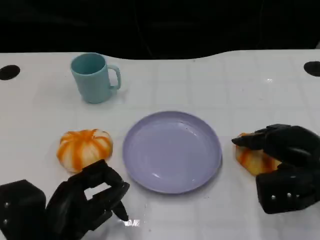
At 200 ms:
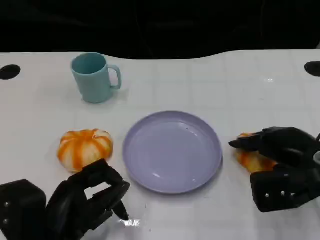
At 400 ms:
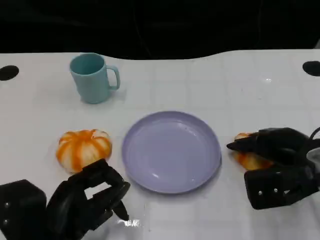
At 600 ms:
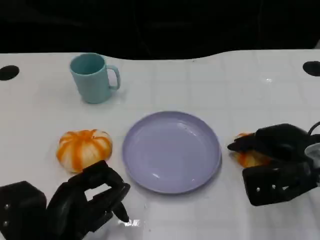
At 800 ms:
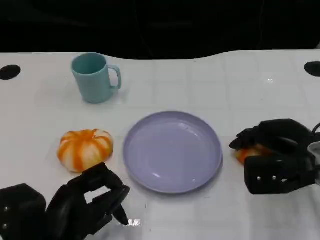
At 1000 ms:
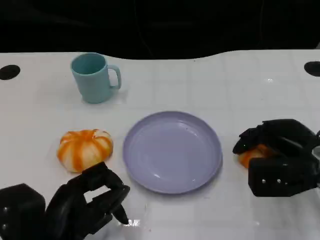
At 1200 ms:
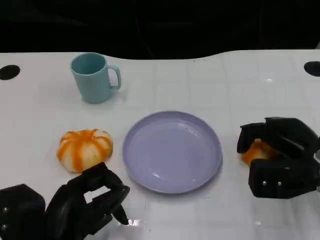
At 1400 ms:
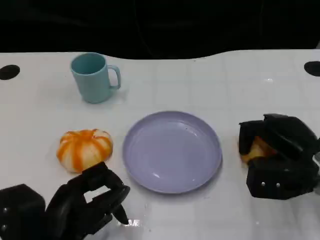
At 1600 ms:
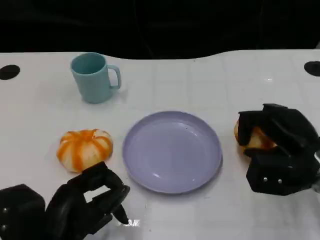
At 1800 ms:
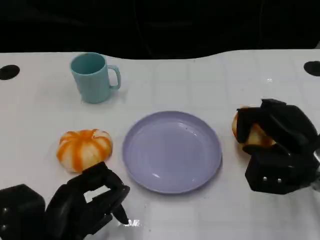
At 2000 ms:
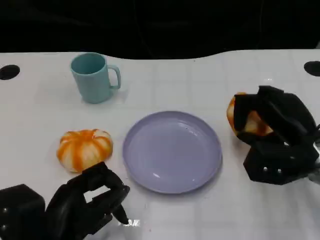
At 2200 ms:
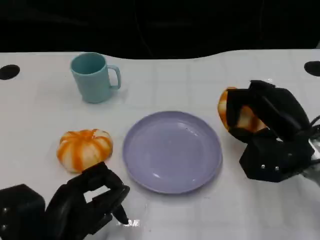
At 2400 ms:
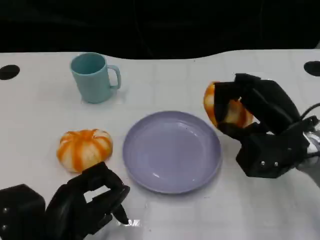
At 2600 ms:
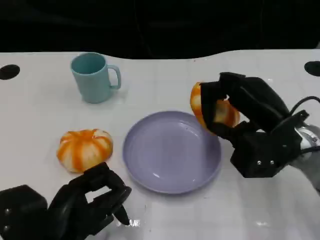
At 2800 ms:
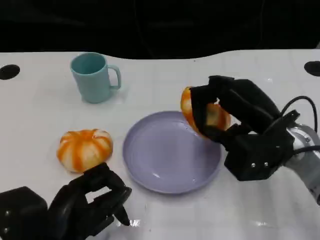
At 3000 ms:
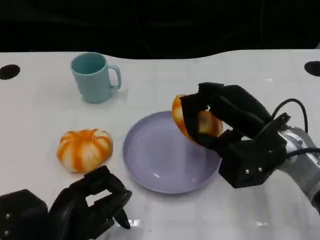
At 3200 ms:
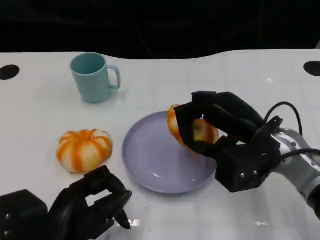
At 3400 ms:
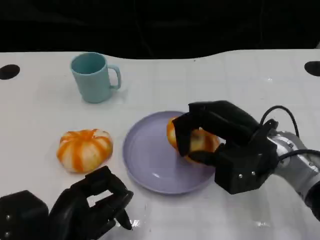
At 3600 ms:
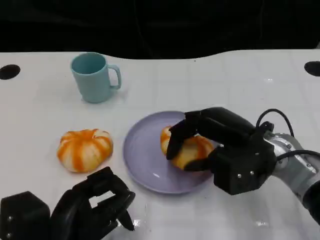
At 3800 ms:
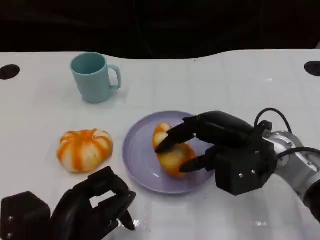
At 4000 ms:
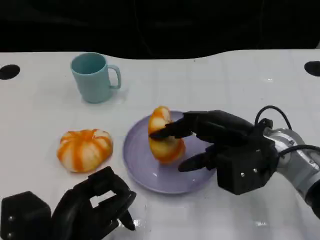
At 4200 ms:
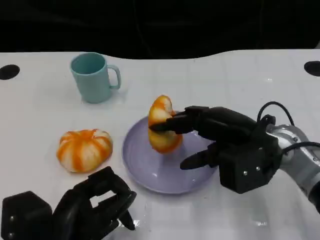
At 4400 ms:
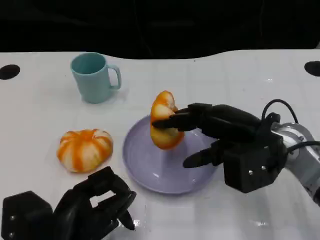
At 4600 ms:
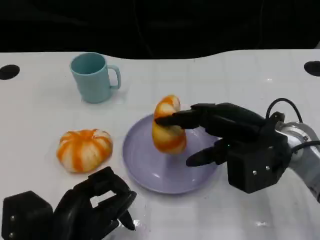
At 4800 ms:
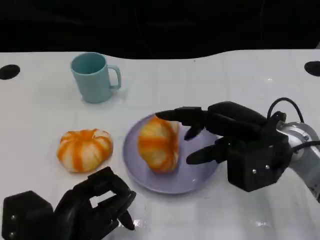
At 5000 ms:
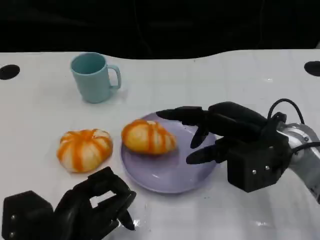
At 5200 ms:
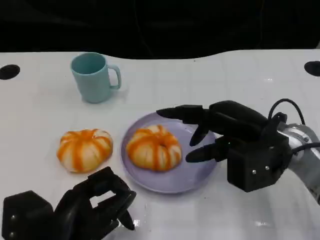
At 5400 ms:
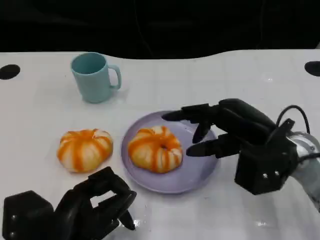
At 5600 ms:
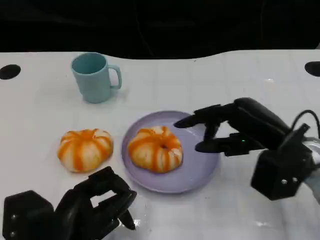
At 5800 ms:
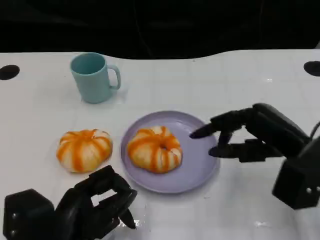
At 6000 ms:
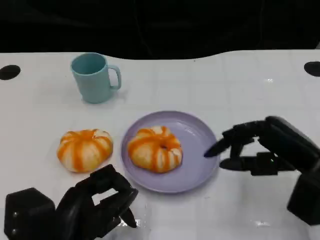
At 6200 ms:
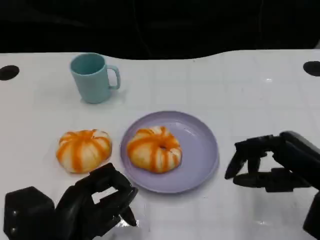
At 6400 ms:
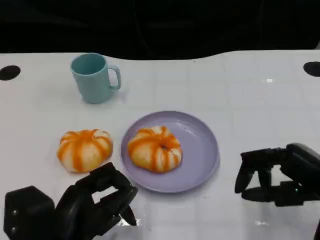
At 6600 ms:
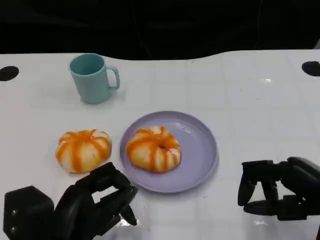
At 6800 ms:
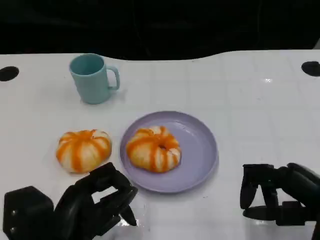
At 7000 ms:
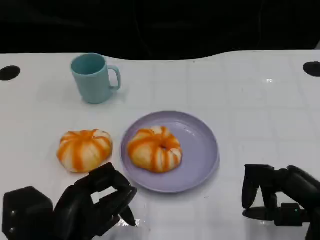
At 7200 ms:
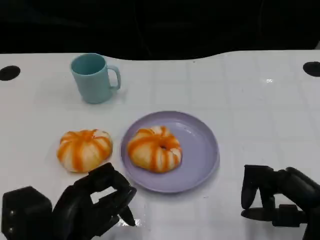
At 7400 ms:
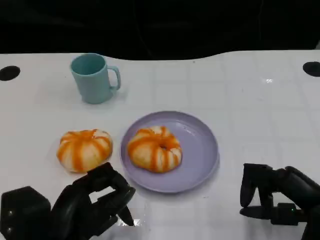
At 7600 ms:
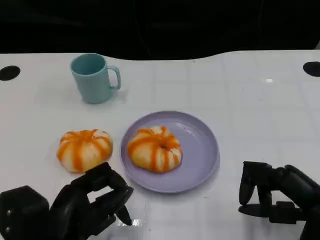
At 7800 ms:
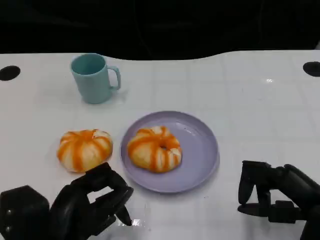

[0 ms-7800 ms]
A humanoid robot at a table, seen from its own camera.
Task of the whole recording: Grasp the bread from the table and place it into the plate.
1600 ms to 3200 ms: The right hand travels to the left by about 5 cm.
3200 ms to 4600 ms: There are only small adjustments of the hands.
4600 ms to 6200 ms: The right hand travels to the right and backward by roughly 10 cm.
6200 ms to 7800 ms: The hands make only small movements.

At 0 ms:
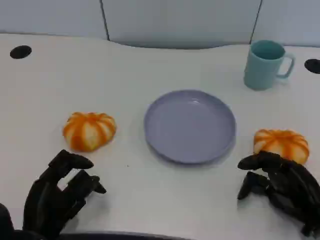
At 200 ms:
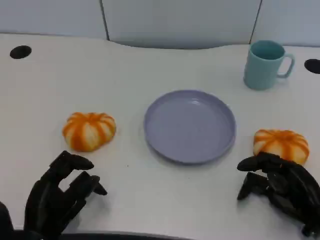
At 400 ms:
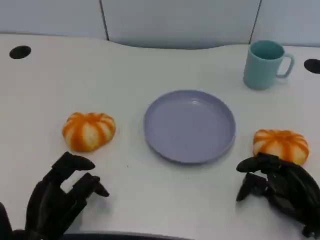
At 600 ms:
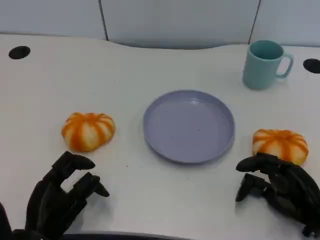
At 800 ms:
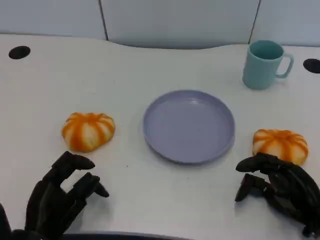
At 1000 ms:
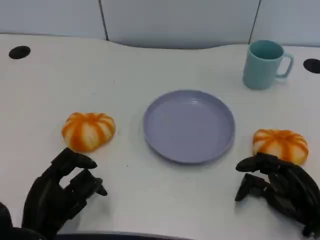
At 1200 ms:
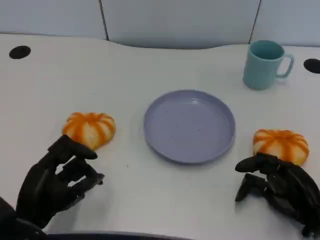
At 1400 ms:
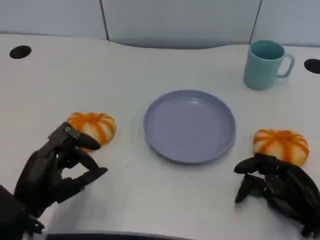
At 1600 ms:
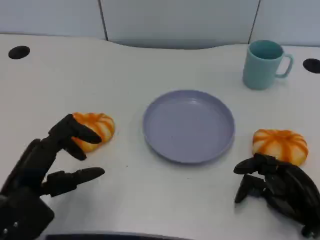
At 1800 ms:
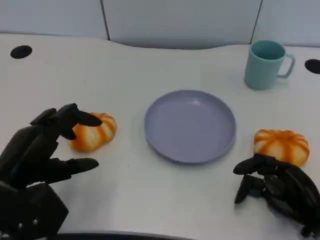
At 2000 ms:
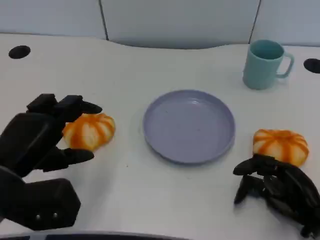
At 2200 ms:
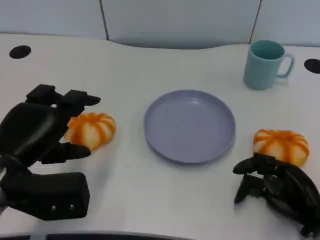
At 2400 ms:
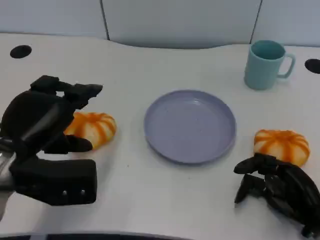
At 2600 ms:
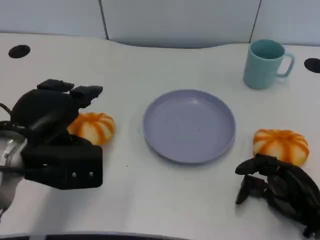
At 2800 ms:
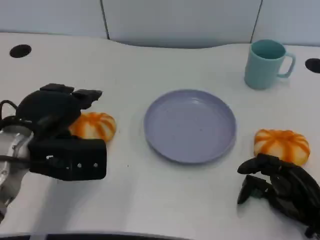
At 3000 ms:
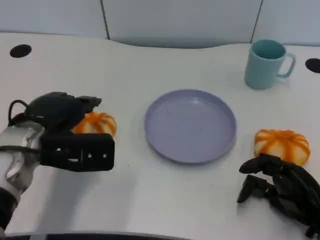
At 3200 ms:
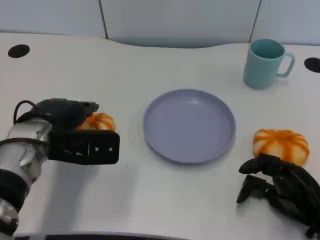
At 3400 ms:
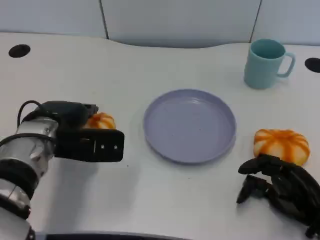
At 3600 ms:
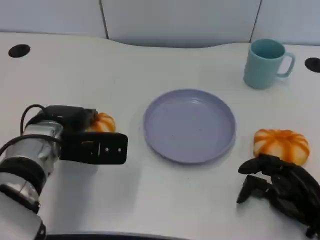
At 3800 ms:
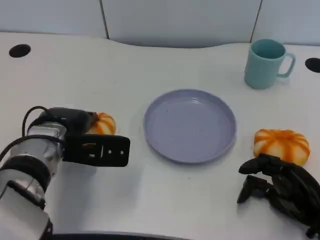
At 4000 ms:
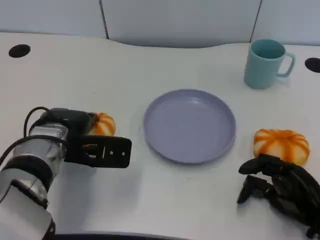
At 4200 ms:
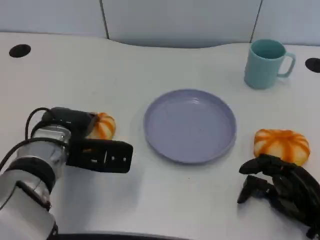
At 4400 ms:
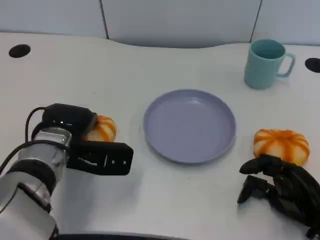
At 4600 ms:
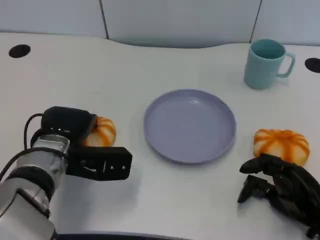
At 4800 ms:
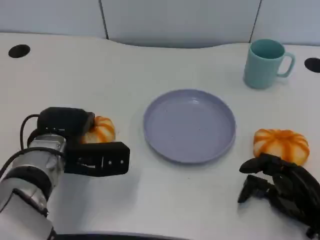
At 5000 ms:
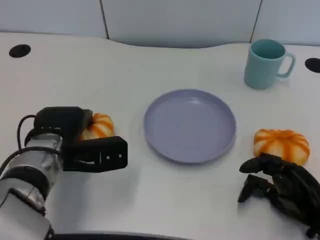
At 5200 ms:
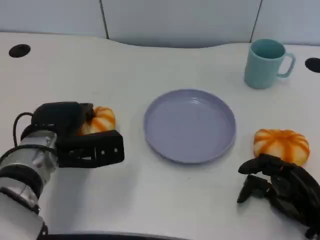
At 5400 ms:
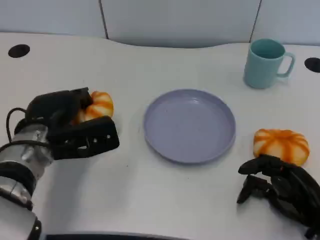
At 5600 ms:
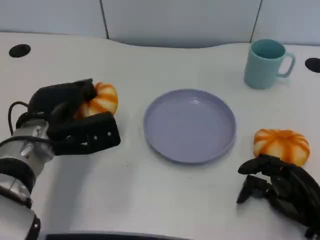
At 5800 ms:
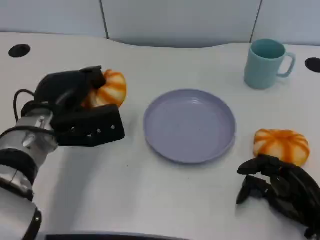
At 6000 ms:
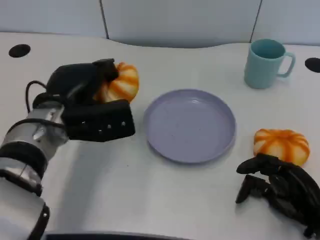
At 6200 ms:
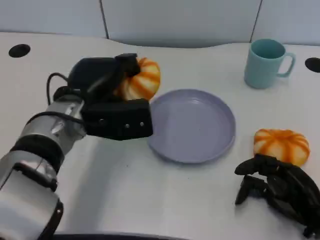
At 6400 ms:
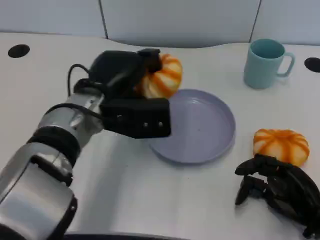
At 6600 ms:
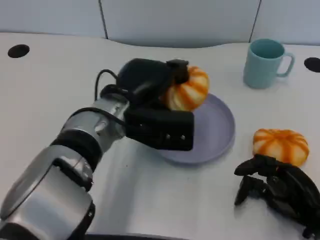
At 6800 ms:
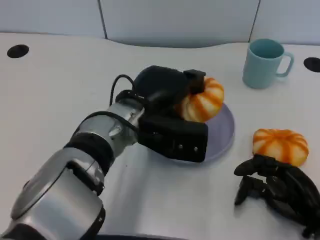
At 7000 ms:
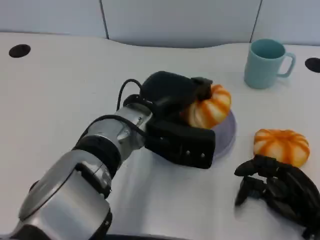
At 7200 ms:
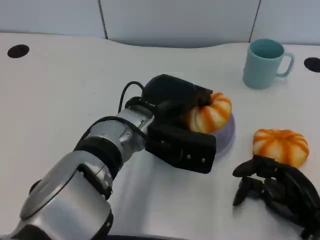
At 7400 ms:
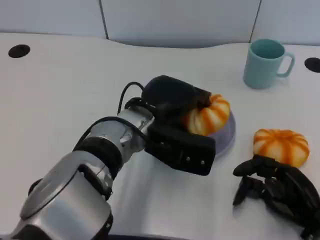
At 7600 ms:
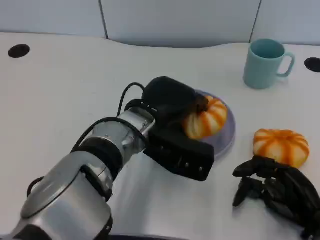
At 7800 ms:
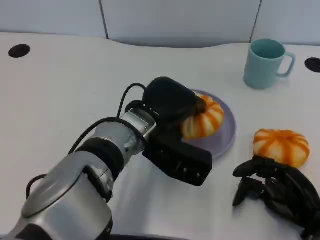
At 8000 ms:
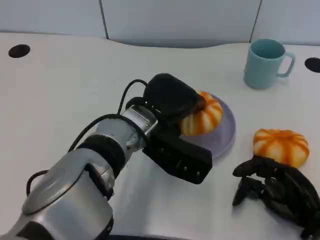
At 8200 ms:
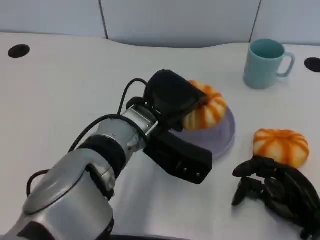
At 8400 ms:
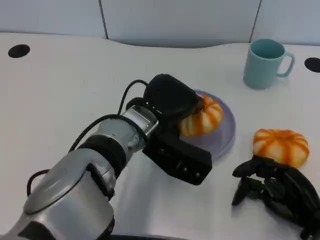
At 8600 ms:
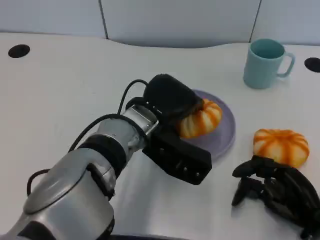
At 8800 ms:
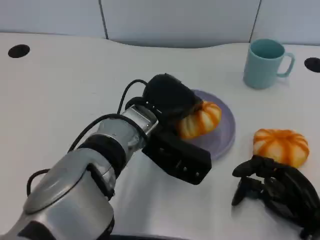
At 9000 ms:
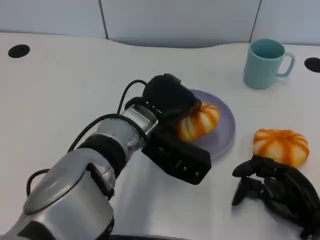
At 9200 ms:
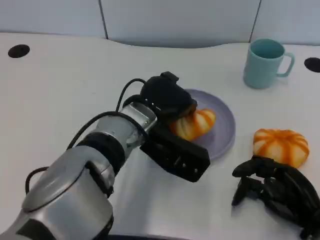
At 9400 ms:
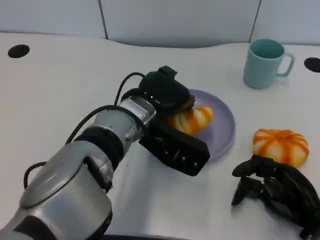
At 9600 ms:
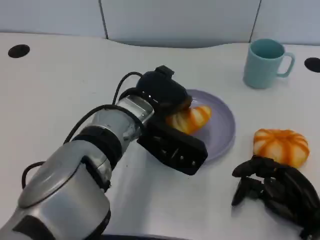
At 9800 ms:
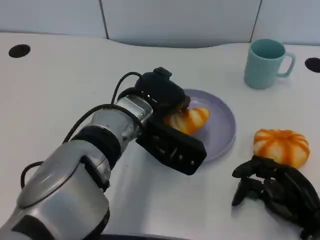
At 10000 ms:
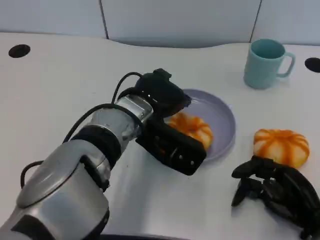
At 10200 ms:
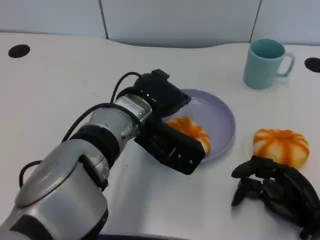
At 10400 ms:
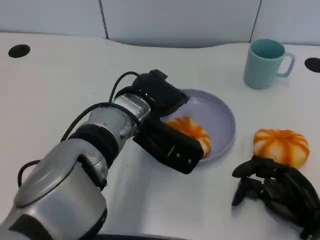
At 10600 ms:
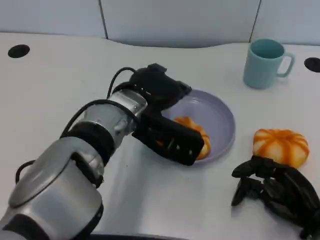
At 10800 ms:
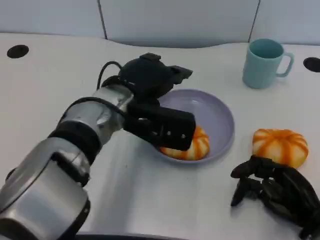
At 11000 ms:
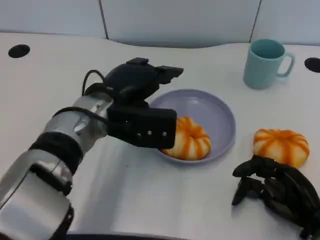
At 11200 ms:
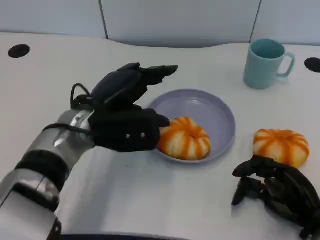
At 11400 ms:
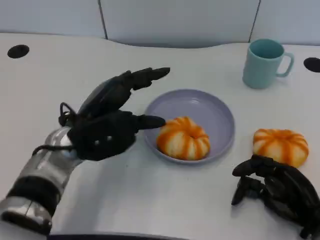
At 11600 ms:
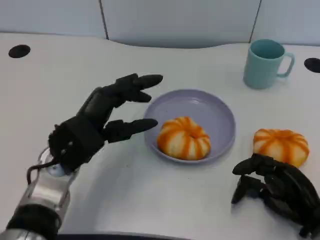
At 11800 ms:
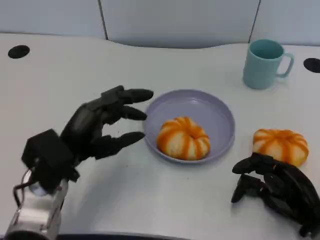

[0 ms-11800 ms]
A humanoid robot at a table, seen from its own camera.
Task of the whole recording: Grasp the bread from the table and place it into the plate.
0 ms to 1400 ms: The left hand is displaced upward by roughly 5 cm.
1400 ms to 3000 ms: The left hand goes approximately 10 cm forward and upward.
3000 ms to 4400 ms: The hands stay close to where they were, moving slightly.
6000 ms to 7400 ms: The left hand heads to the right, covering roughly 10 cm.
7400 ms to 8800 ms: There are only small adjustments of the hands.
8800 ms to 10400 ms: The hands stay close to where they were, moving slightly.
10400 ms to 11800 ms: The left hand shifts about 15 cm to the left and backward.

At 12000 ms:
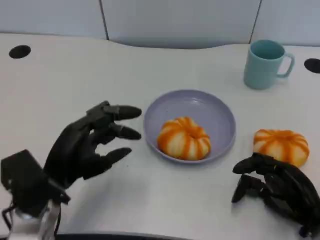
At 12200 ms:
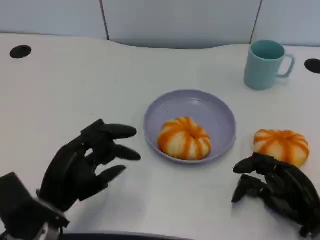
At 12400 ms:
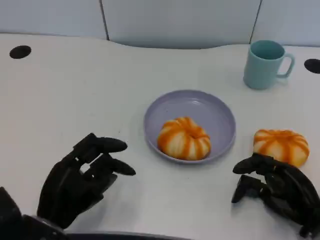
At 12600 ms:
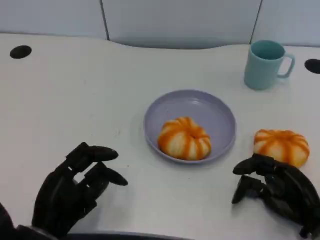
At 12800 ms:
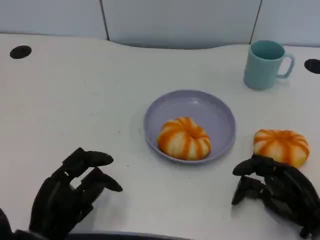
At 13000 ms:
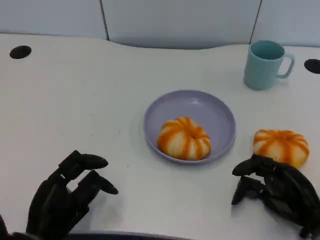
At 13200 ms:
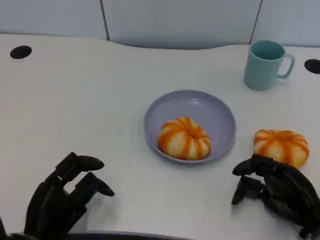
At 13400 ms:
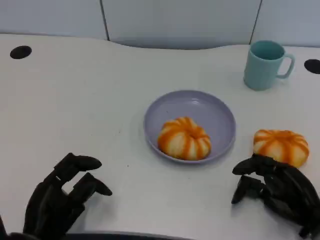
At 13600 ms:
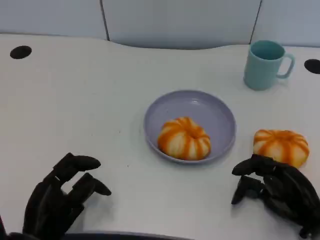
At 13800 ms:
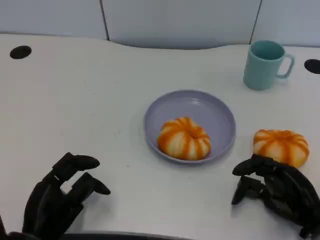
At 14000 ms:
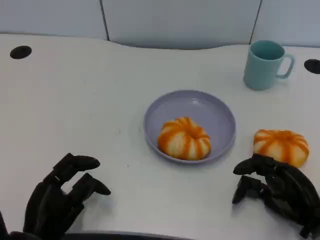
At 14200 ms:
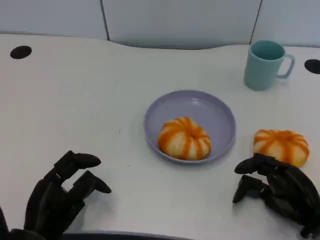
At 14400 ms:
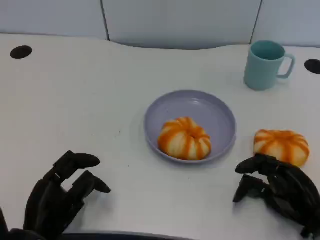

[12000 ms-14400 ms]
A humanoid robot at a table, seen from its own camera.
Task of the whole recording: Grasp the bread from the table and place it into the plate.
12000 ms to 13200 ms: The left hand travels downward and backward by approximately 10 cm.
13200 ms to 14400 ms: Both hands stay put.
